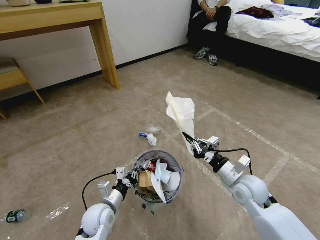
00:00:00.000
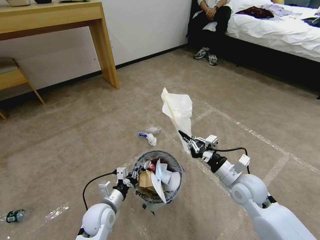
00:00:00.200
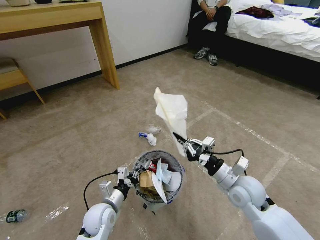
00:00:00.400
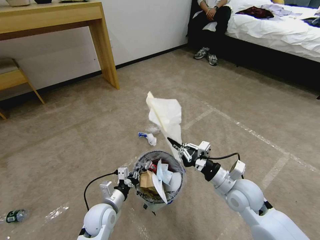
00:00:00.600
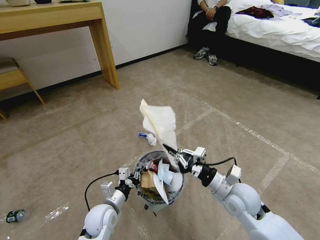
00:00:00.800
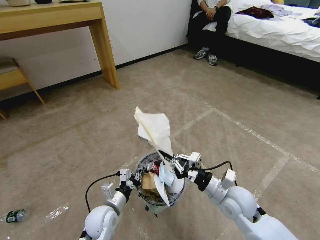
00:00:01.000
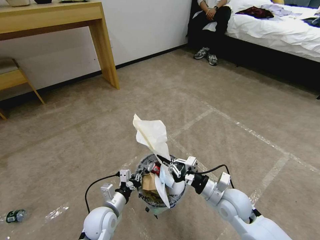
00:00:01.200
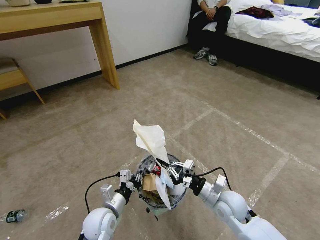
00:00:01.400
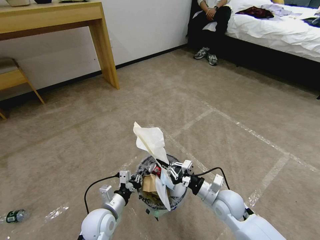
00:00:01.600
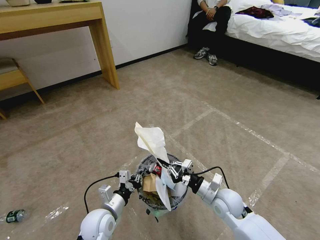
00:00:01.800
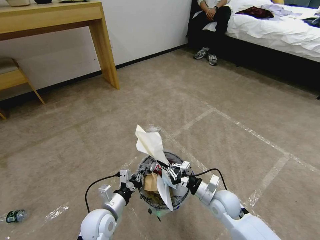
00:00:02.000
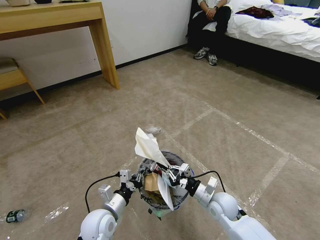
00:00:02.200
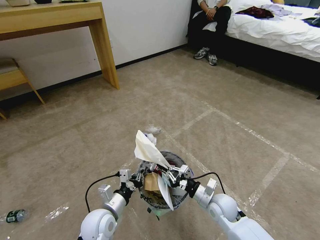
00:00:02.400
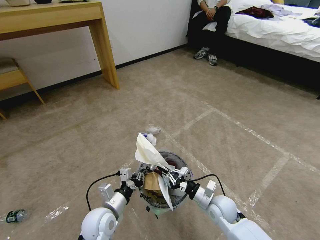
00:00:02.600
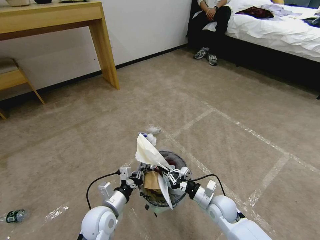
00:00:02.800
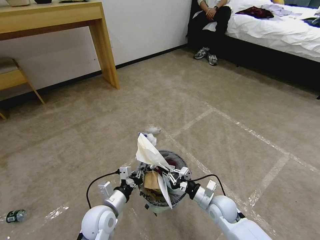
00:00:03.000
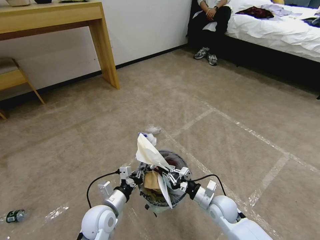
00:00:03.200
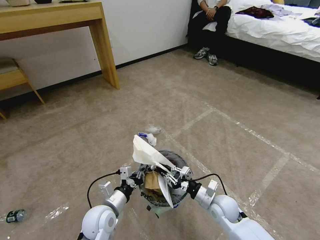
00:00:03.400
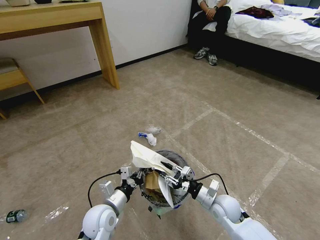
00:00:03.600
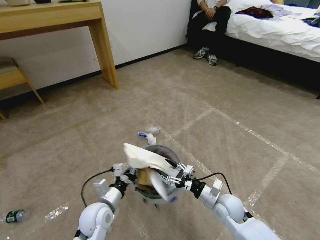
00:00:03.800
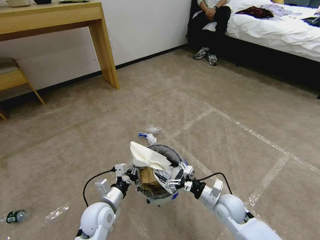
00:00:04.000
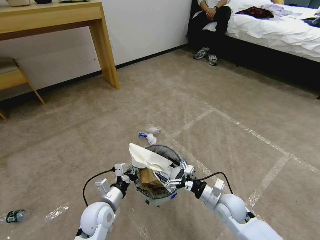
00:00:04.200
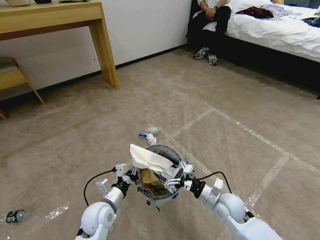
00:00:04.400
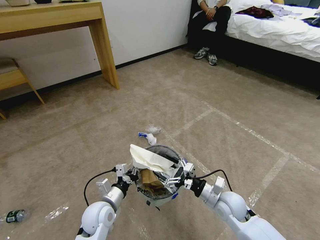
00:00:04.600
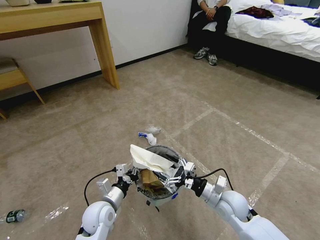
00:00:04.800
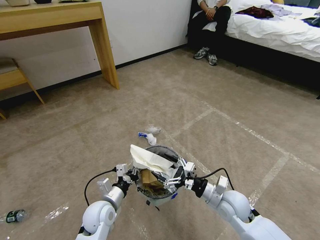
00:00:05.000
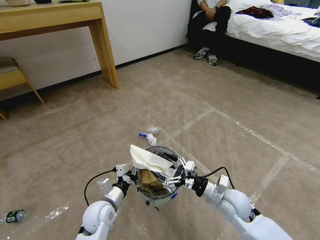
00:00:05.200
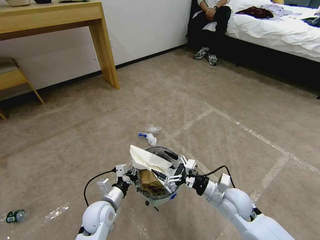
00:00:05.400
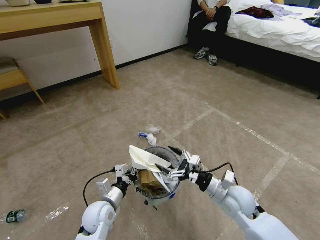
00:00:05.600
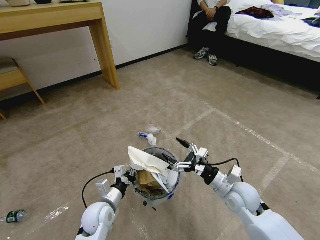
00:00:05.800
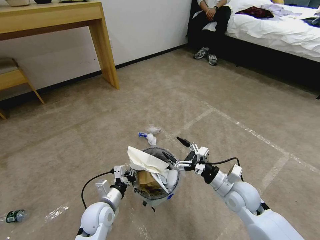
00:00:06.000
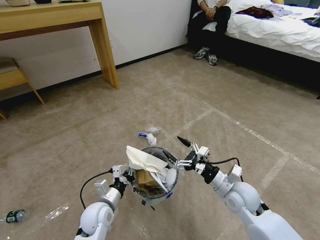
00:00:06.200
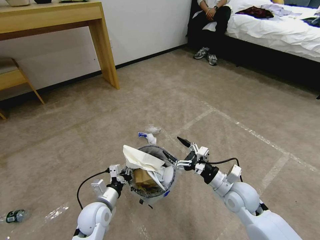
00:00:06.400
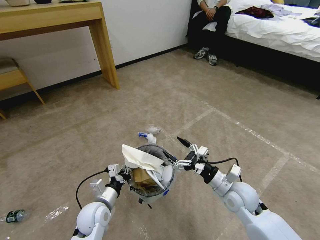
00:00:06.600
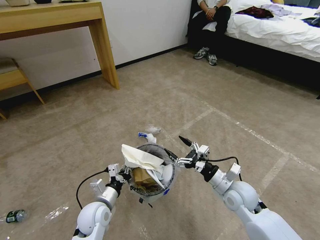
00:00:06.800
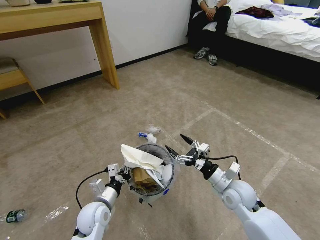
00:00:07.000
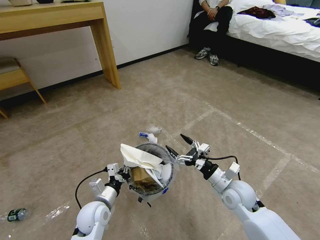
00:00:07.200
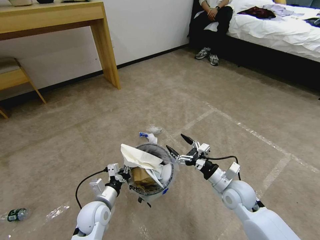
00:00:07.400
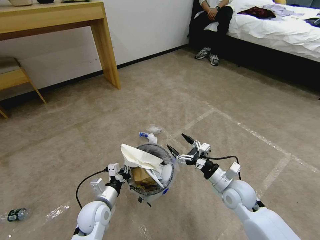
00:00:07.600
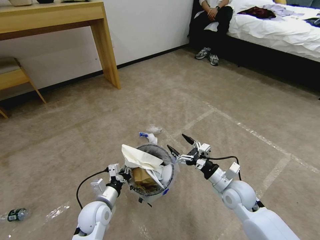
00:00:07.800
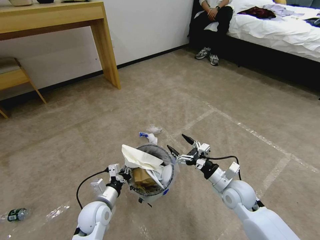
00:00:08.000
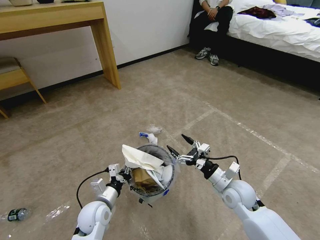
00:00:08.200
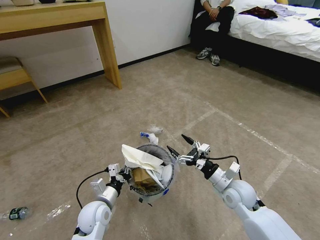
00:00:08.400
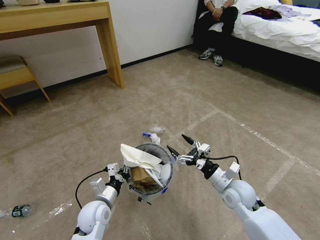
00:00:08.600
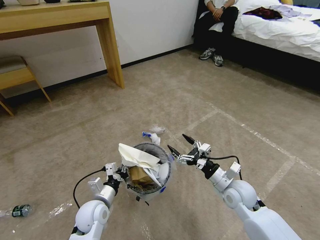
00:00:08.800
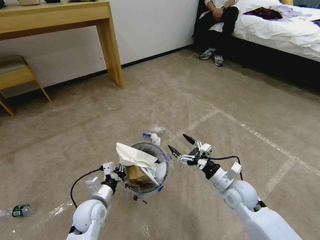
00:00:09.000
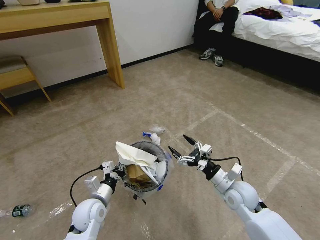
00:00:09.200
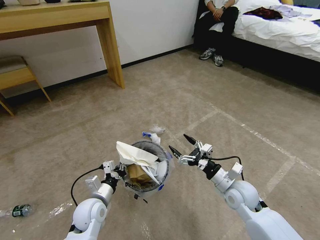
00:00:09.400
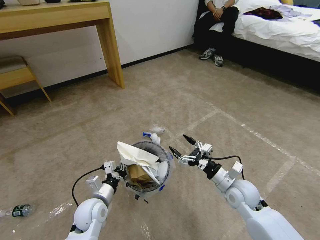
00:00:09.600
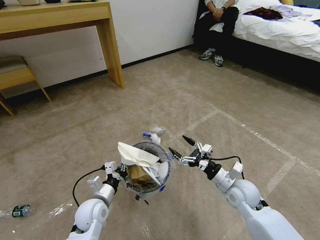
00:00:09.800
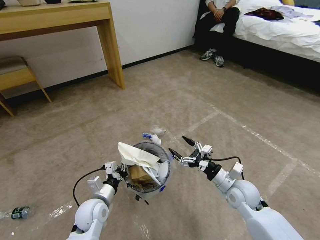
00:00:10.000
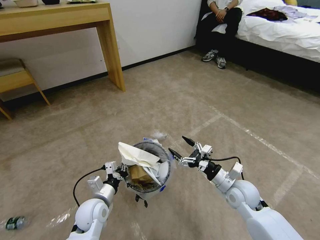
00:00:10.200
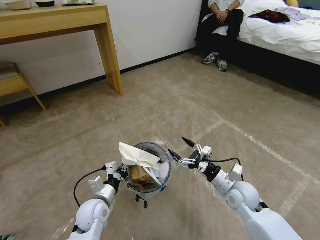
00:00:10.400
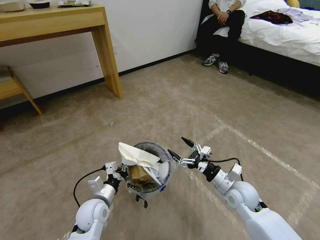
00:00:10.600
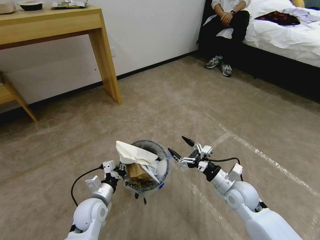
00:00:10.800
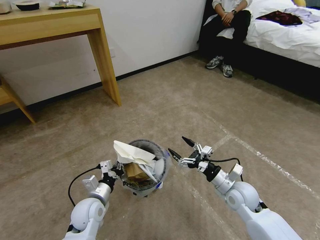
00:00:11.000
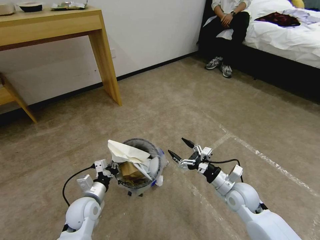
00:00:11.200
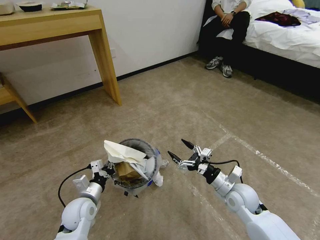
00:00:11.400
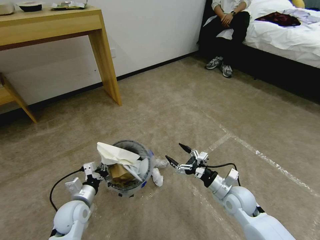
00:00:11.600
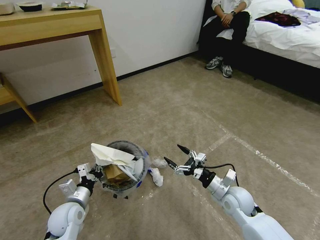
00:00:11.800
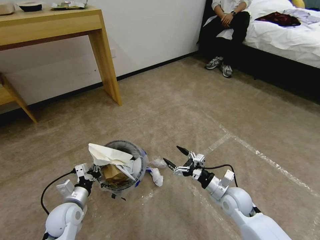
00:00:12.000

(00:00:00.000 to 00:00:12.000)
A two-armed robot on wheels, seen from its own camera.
Task of the whole recording: Pick up the trash bin and place the garbage on the floor into it.
00:00:00.000 - 00:00:01.600: The right gripper travels downward and to the left by approximately 10 cm.
00:00:01.600 - 00:00:03.000: The right gripper moves downward, approximately 5 cm.
00:00:03.000 - 00:00:04.400: The right gripper opens its fingers.
00:00:04.400 - 00:00:06.000: The right gripper shifts roughly 5 cm upward.
00:00:06.000 - 00:00:09.000: There are only small adjustments of the grippers.
00:00:10.400 - 00:00:12.000: The left gripper travels to the left by some 10 cm.

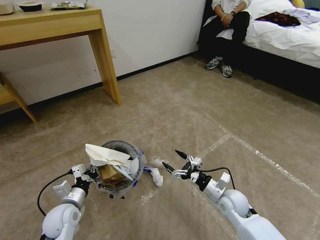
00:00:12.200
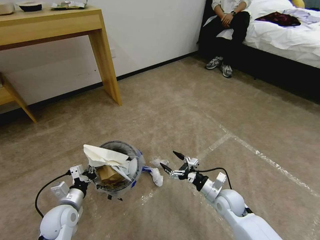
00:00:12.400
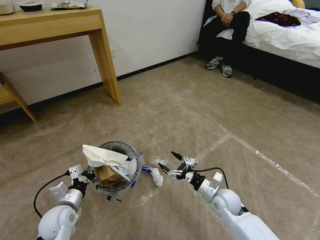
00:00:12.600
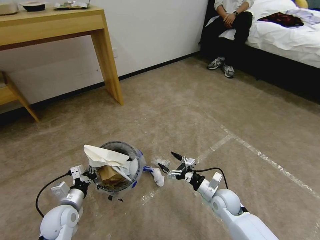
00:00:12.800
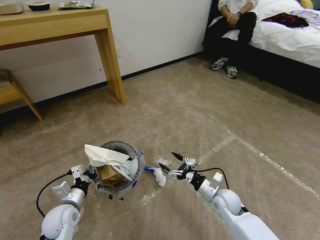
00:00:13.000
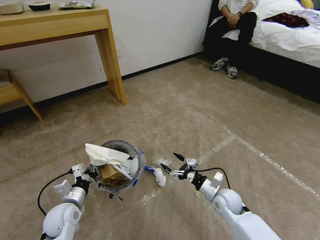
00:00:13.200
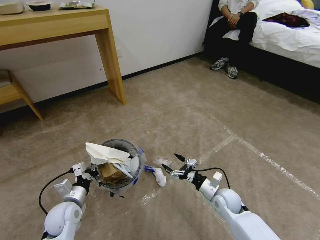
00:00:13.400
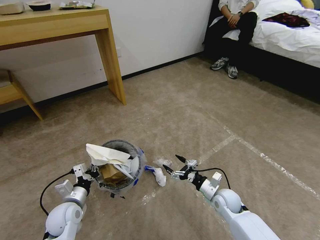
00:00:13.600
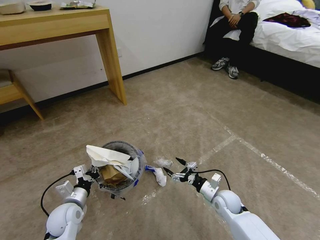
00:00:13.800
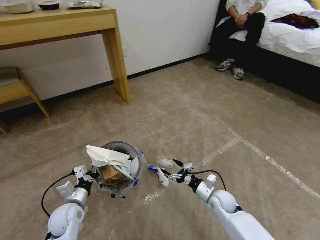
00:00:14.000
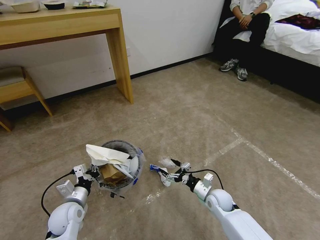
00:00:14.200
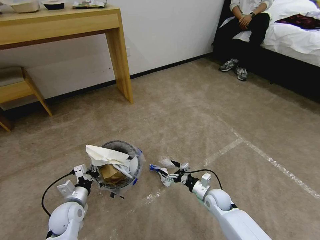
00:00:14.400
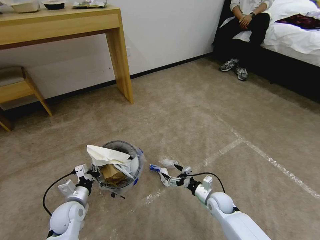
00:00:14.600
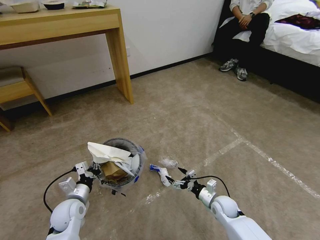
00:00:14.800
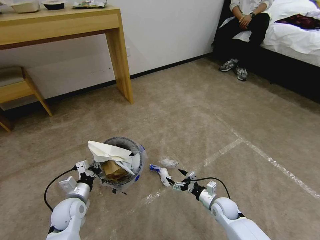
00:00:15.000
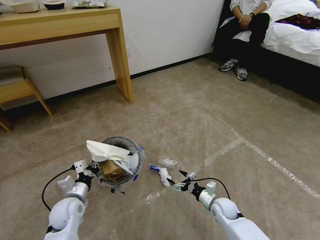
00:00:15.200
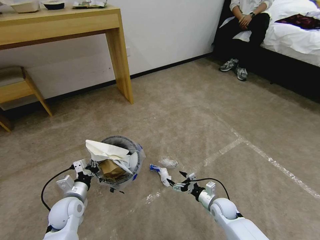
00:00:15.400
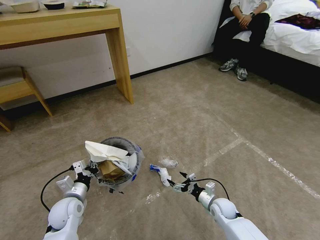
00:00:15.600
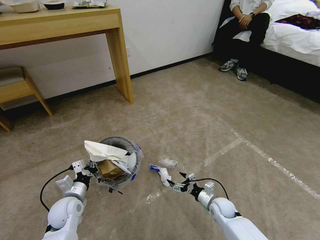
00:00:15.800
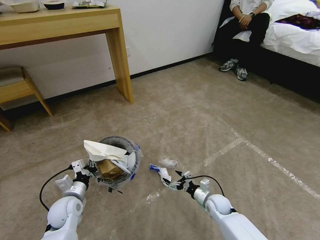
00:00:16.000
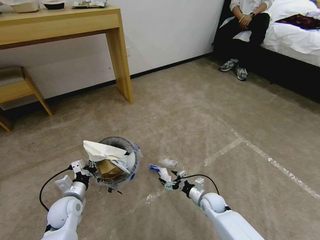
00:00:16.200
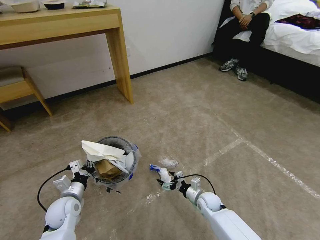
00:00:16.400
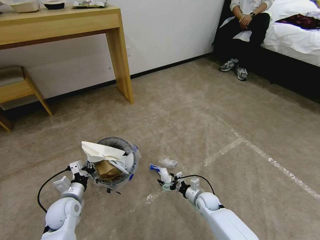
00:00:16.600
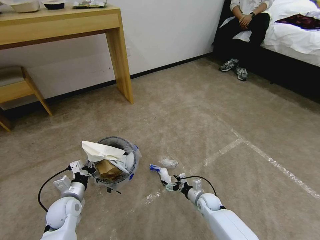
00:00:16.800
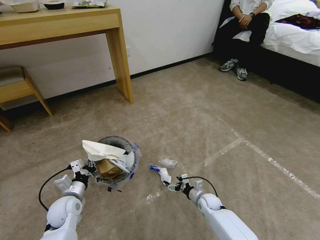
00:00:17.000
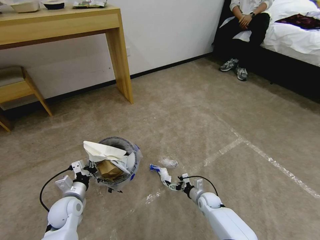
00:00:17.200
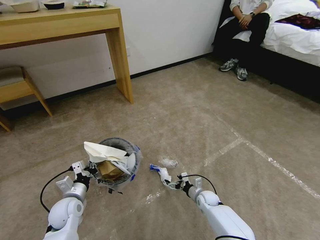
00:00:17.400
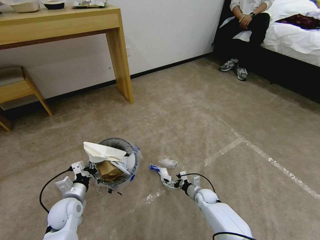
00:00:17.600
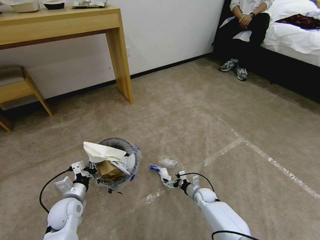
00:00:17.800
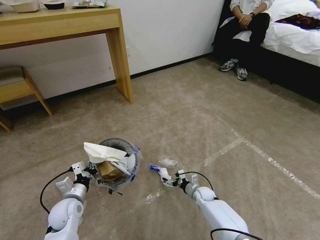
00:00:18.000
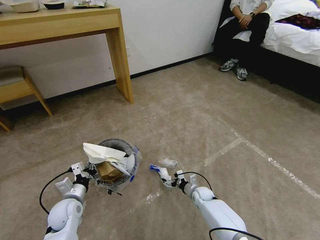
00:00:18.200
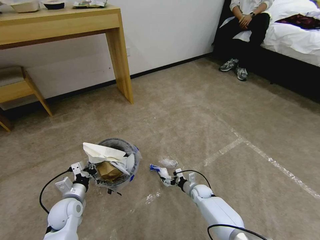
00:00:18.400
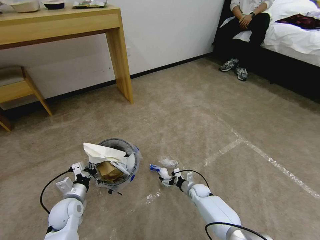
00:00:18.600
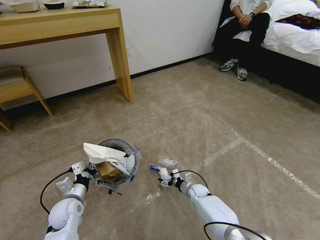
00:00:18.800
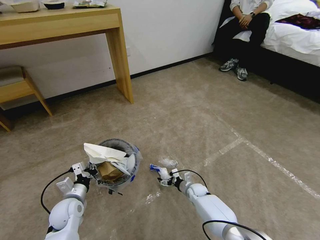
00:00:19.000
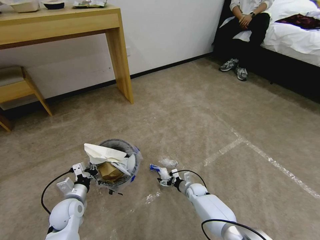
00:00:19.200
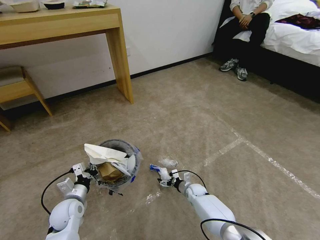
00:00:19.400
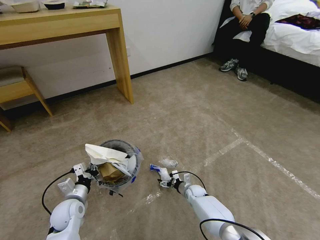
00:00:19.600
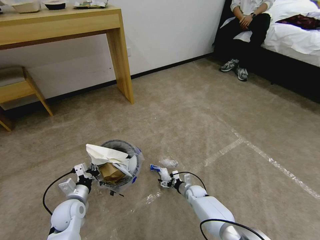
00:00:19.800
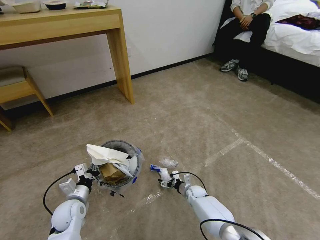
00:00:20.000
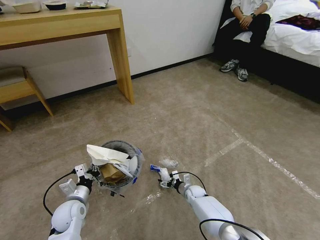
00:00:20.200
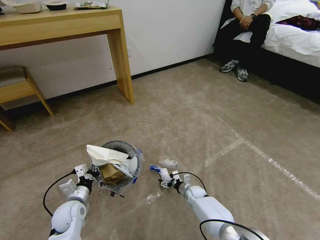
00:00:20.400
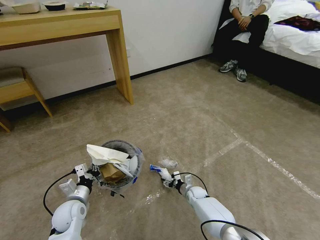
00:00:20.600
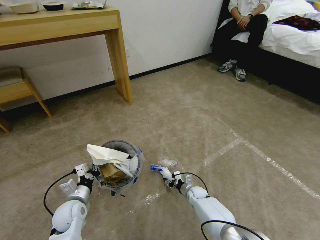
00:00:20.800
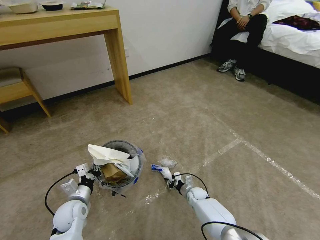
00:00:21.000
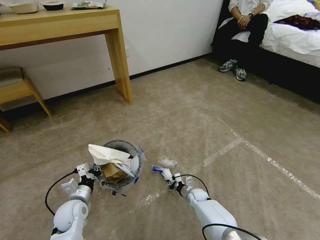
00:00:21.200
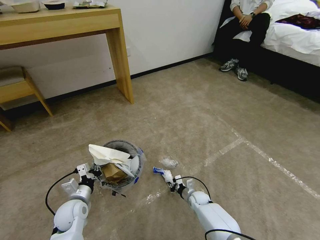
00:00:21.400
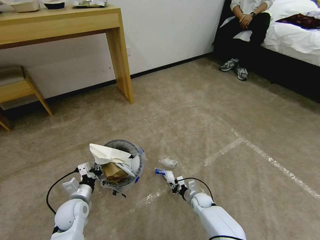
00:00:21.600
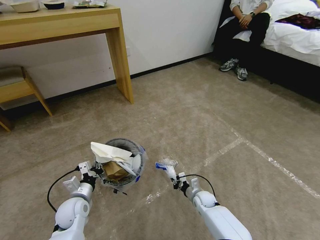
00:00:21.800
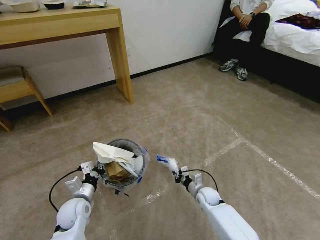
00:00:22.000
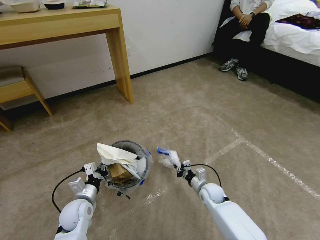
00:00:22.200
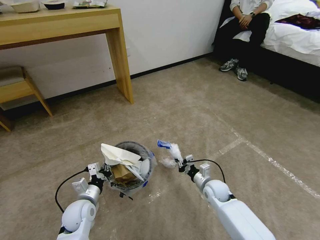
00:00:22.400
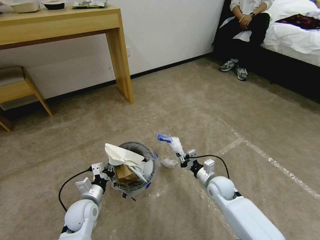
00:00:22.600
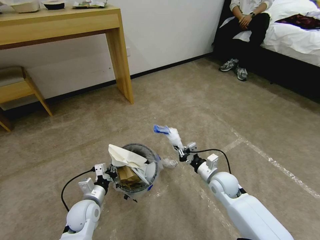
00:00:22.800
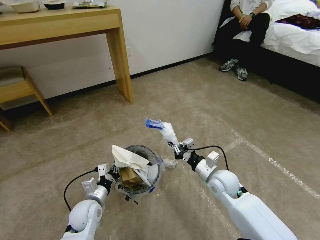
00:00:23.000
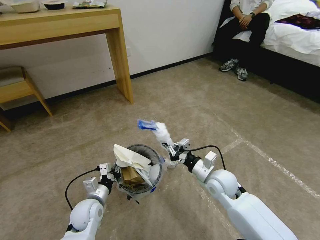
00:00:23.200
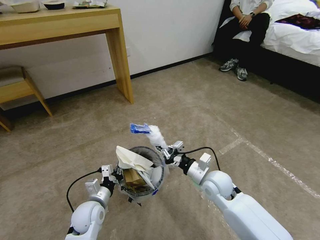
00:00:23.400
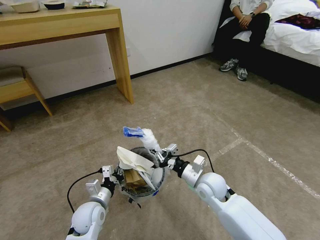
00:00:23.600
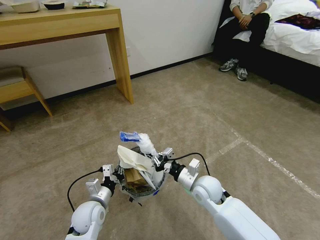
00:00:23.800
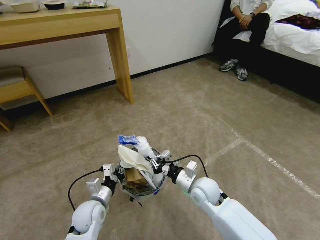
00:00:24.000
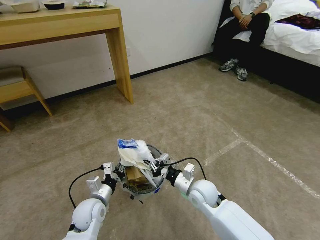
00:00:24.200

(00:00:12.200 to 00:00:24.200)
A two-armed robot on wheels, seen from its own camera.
Task of the whole recording: Pick up the trash bin and place the garbage on the floor into it.
00:00:12.200 - 00:00:13.800: The right gripper heads downward, covering roughly 5 cm.
00:00:13.800 - 00:00:15.200: The right gripper goes some 5 cm downward.
00:00:15.200 - 00:00:16.600: The right gripper shifts by some 5 cm.
00:00:16.600 - 00:00:18.200: The right gripper shifts by roughly 5 cm.
00:00:18.200 - 00:00:19.800: The grippers move only a little.
00:00:19.800 - 00:00:21.200: The right gripper closes up.
00:00:21.200 - 00:00:22.600: The right gripper moves upward, some 20 cm.
00:00:22.600 - 00:00:24.200: The right gripper heads to the left, covering about 10 cm.
